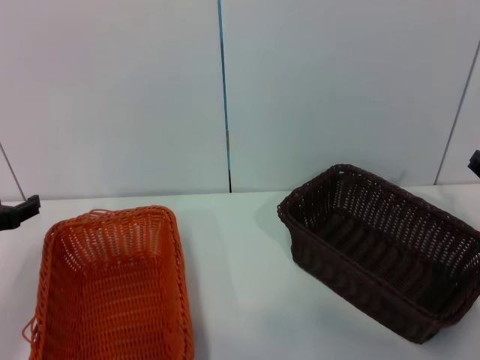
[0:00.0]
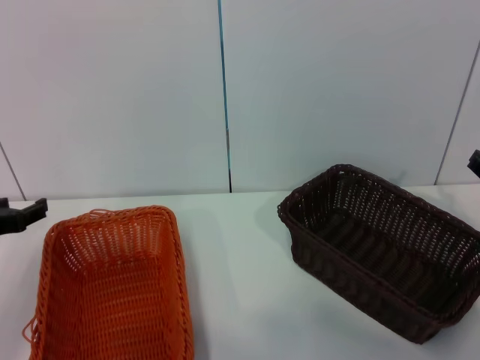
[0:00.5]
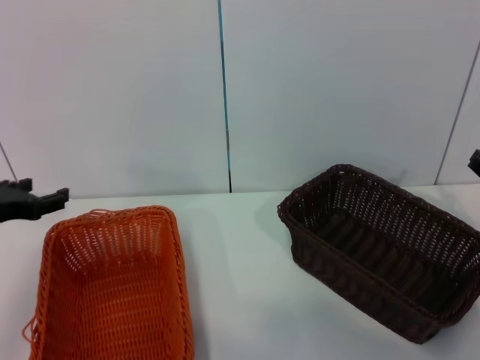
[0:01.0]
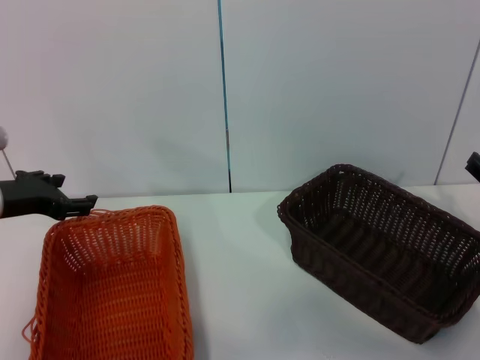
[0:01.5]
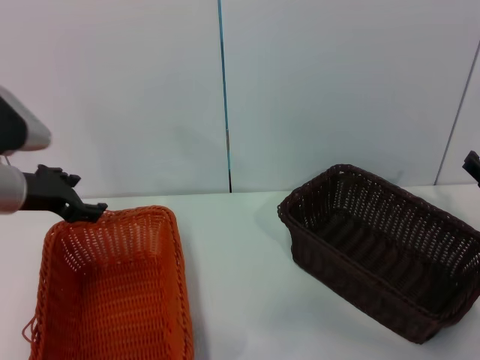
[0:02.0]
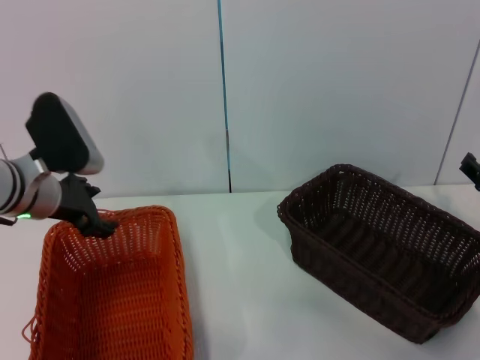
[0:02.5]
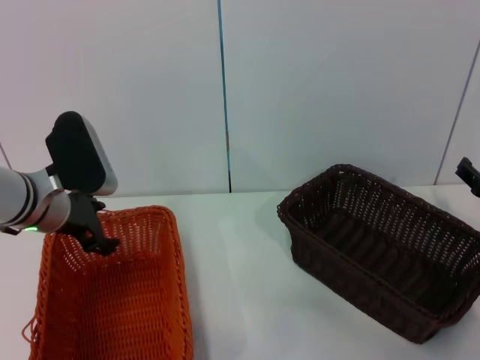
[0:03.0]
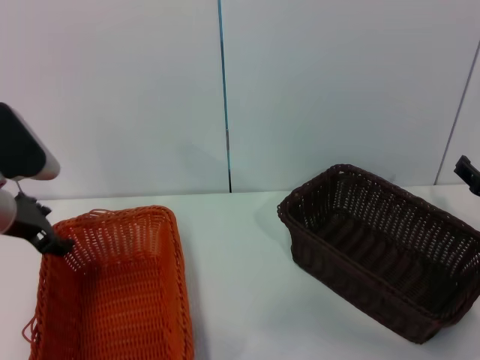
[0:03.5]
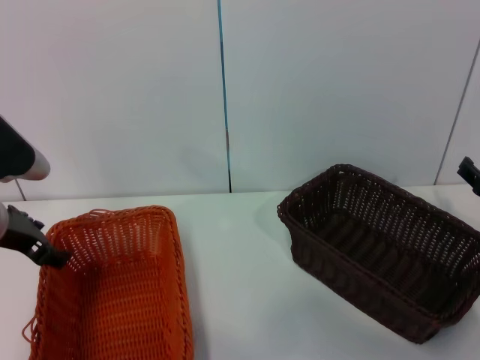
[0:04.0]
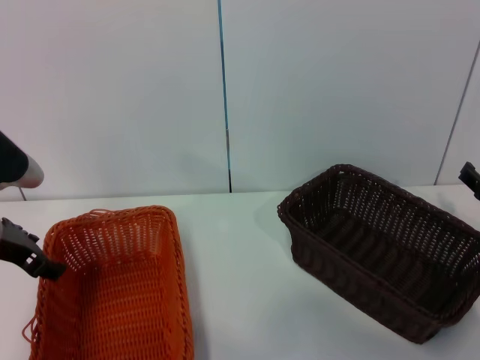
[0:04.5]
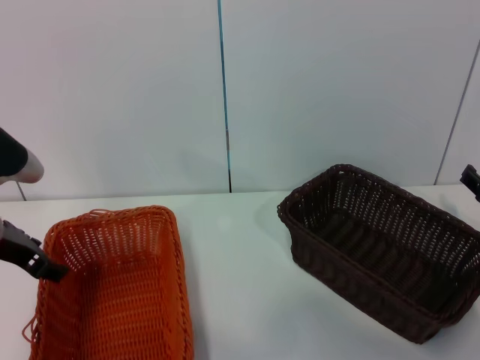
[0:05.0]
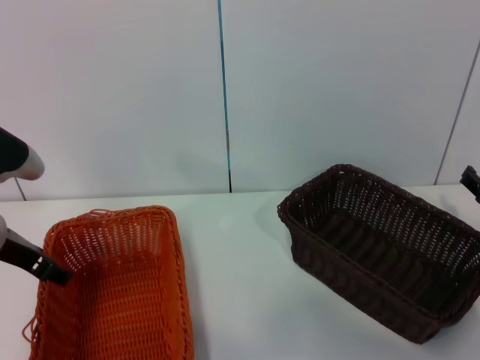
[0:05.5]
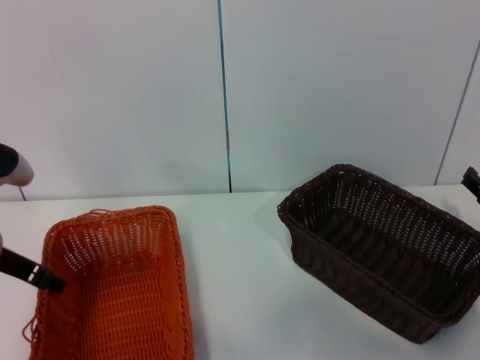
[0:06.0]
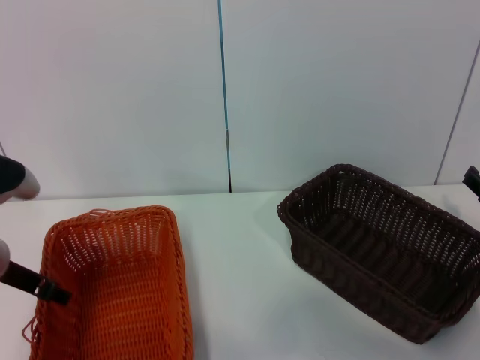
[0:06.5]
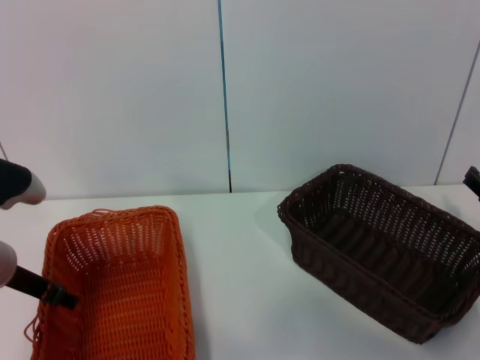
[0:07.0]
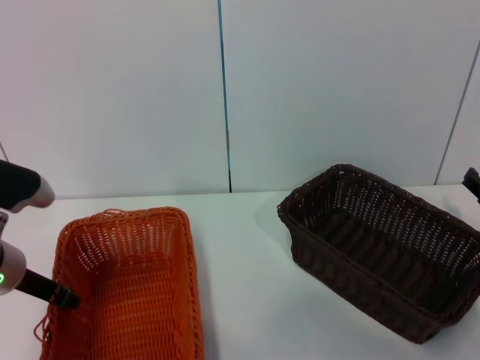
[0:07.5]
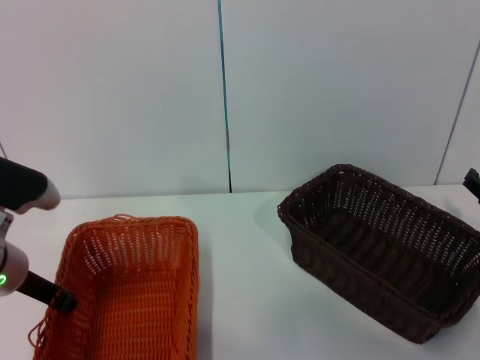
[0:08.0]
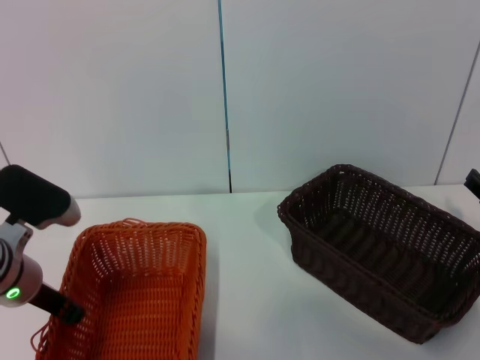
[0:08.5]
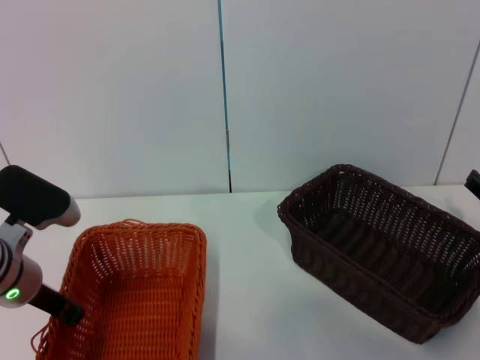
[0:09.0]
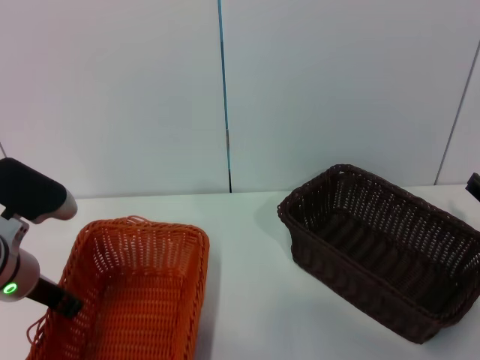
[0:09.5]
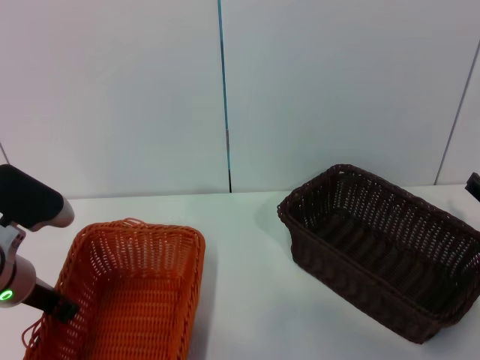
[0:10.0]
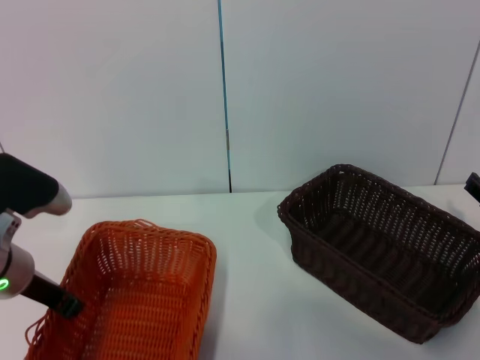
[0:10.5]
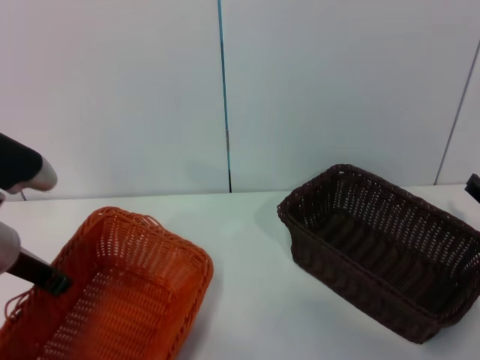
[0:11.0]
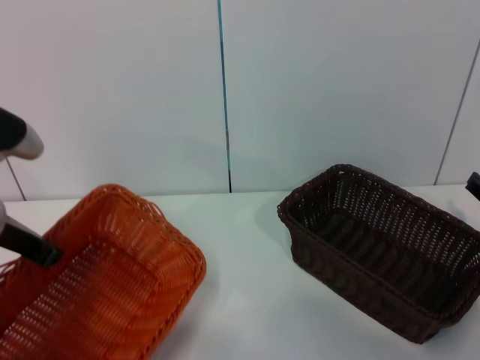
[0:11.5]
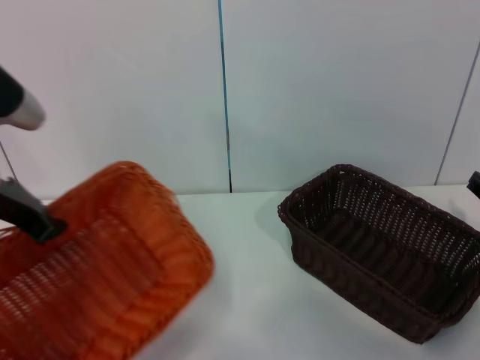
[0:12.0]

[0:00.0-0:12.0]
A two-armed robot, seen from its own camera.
Step, 0:00.0 to 0:11.5: Pick up the light basket with the left gripper.
0:00.0 to 0:02.0: The left gripper heads to the right, forward and upward, covering about 10 cm.
0:04.0 to 0:06.0: There are only small adjustments of the grippers.
0:06.0 to 0:08.0: The left gripper closes.
0:08.0 to 0:10.0: There are only small adjustments of the grippers.
0:10.0 to 0:12.0: The left gripper is displaced upward by approximately 15 cm.

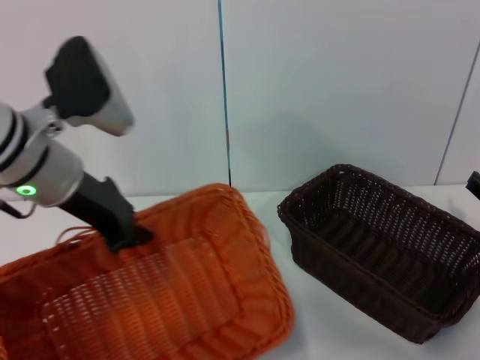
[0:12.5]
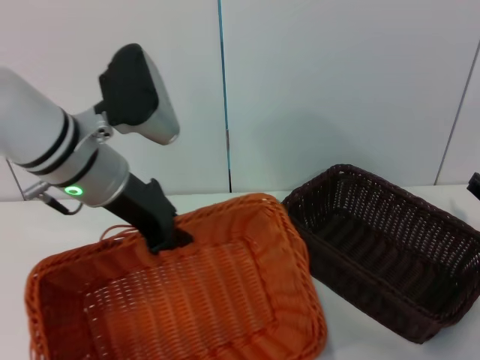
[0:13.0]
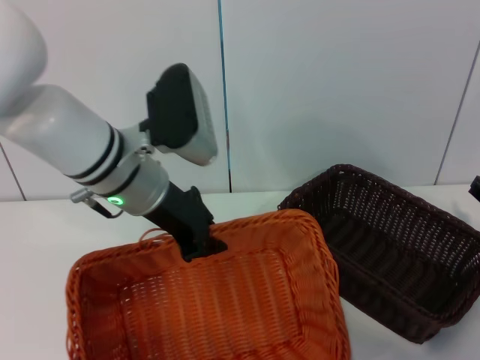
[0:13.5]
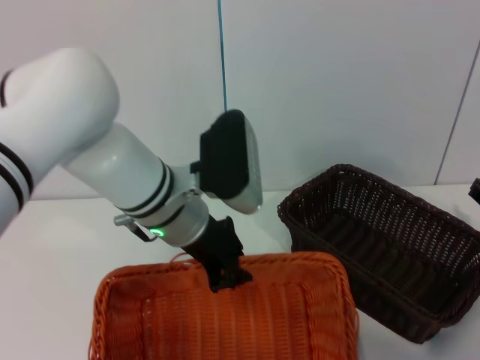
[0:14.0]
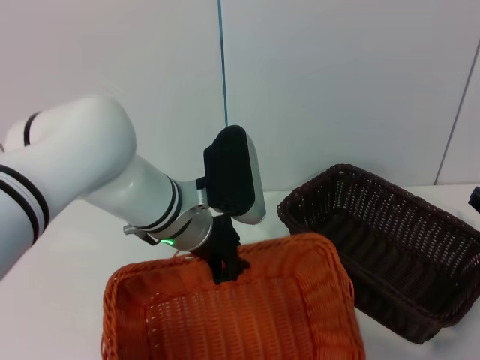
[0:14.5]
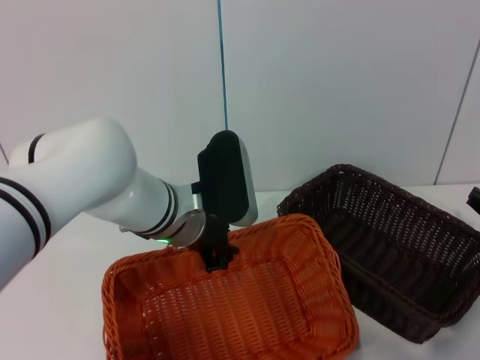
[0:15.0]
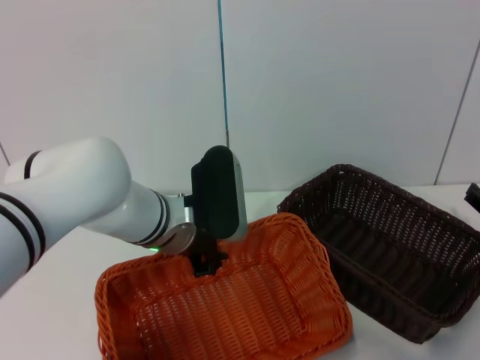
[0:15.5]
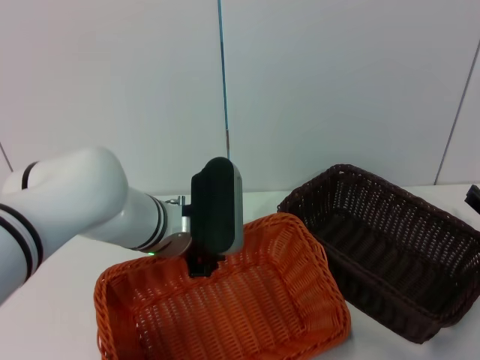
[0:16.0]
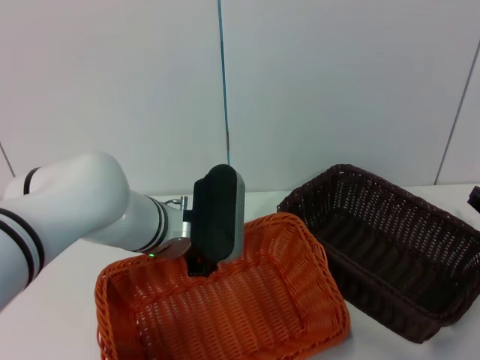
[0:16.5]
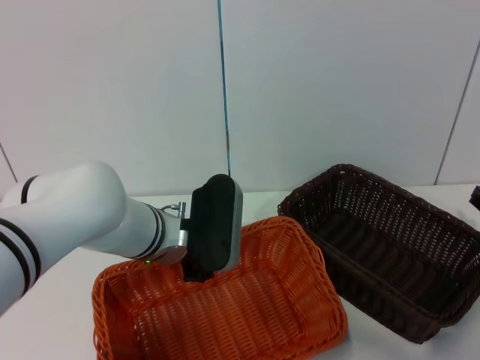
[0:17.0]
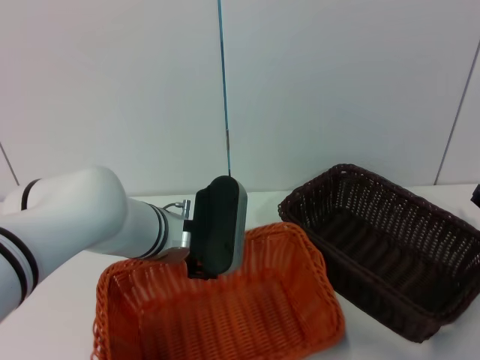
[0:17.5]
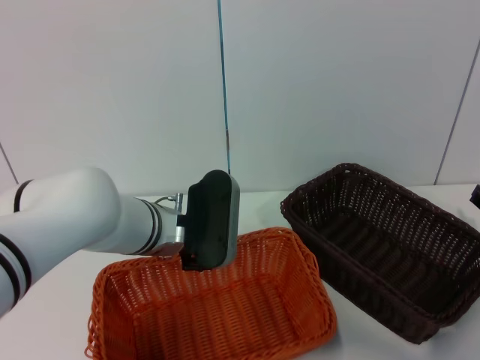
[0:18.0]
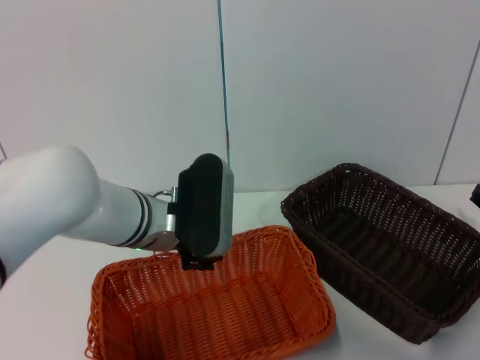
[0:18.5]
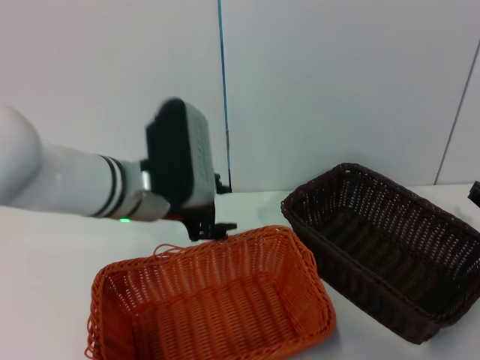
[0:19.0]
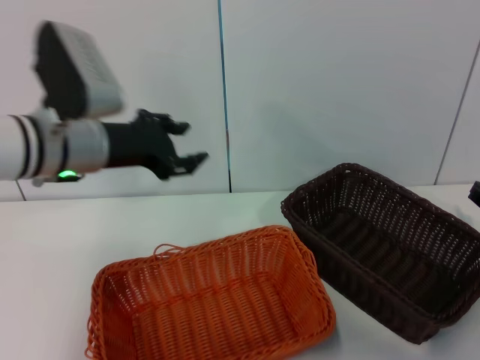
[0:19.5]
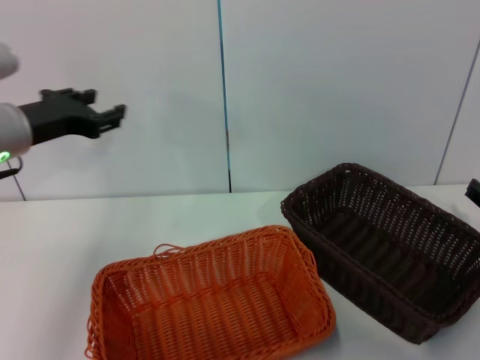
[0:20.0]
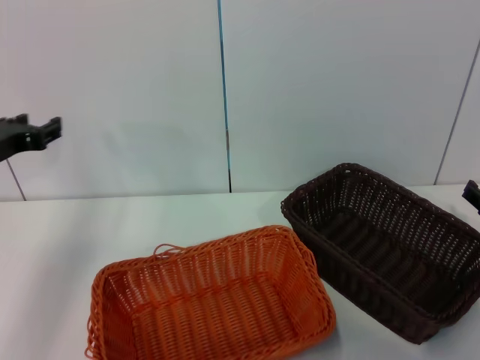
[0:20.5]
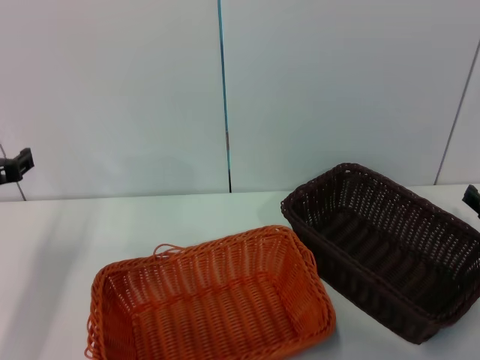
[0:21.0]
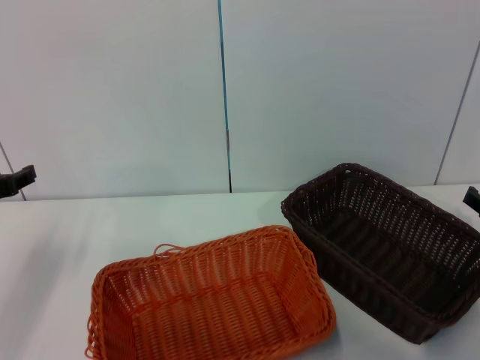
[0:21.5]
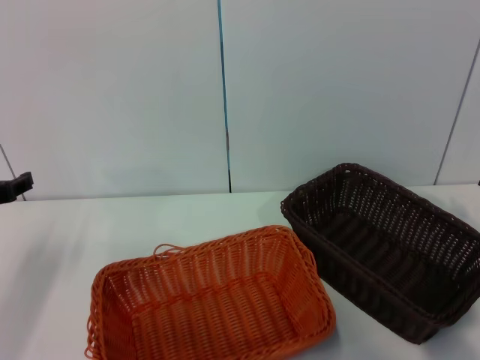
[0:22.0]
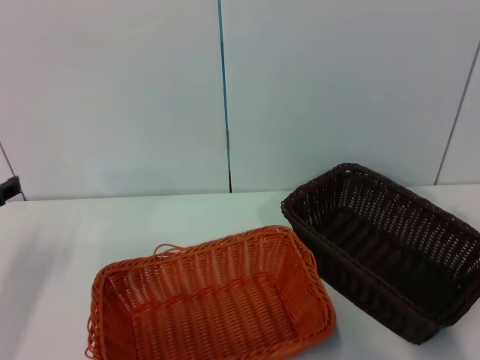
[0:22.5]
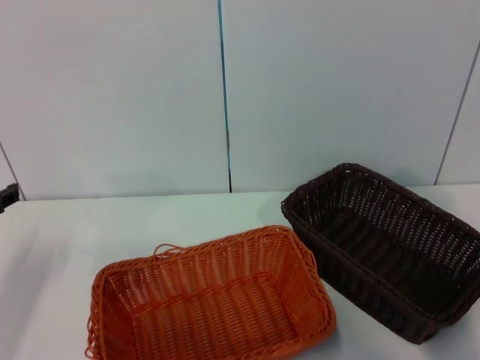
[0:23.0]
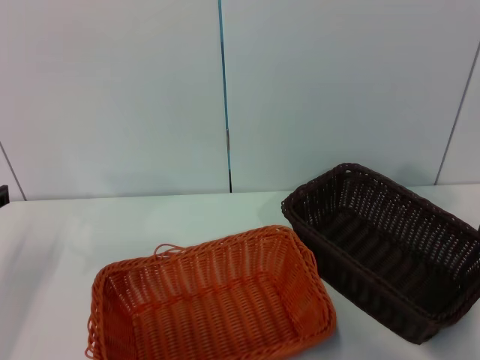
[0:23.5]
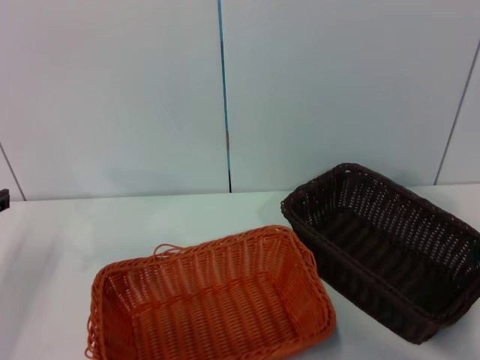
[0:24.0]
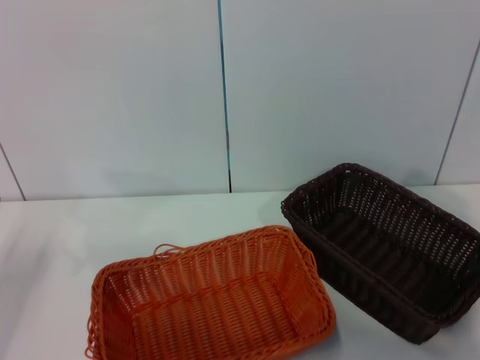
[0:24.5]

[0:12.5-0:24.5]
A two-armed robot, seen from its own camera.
Step, 0:12.5 to 0:17.5: Place the light basket in the center of view with the left gripper.
0:12.5 to 0:14.5: The left gripper moves to the right and downward, approximately 15 cm.
0:14.5 to 0:16.5: There are only small adjustments of the grippers.
0:16.5 to 0:18.5: The left gripper opens its fingers.
0:18.5 to 0:20.5: The left gripper moves to the left, some 20 cm.
0:20.5 to 0:22.5: The left gripper ends up roughly 10 cm from where it was.

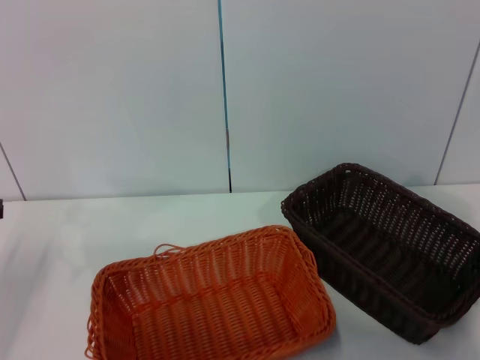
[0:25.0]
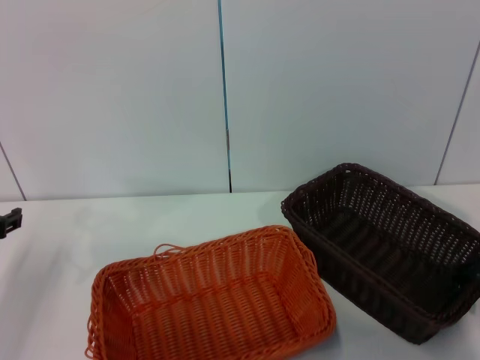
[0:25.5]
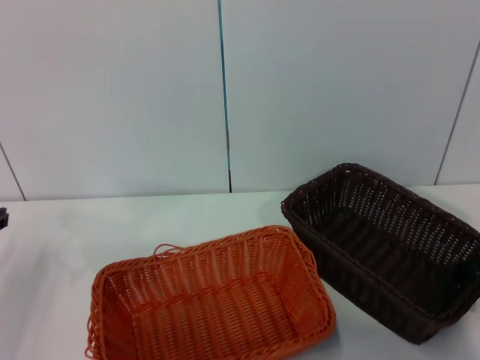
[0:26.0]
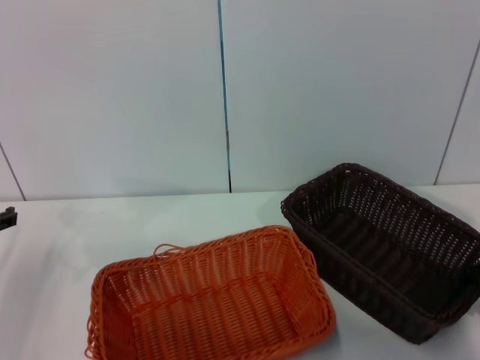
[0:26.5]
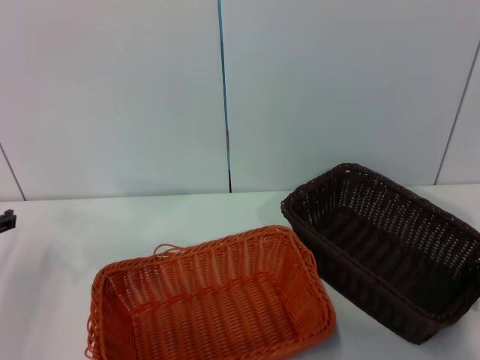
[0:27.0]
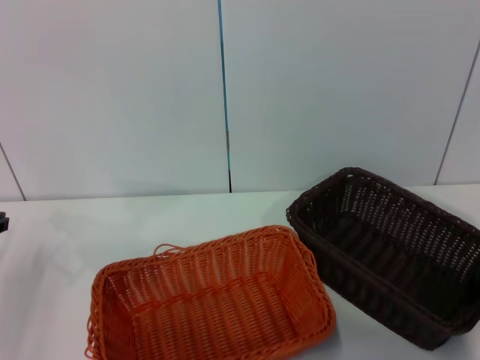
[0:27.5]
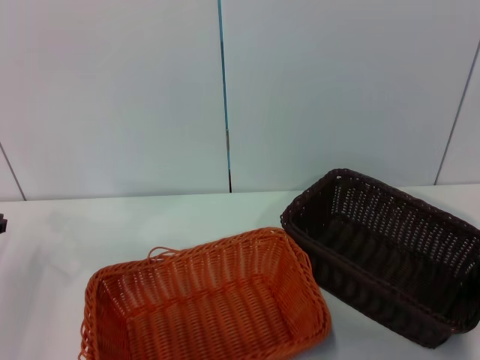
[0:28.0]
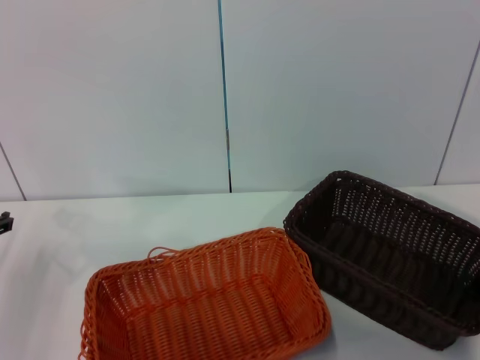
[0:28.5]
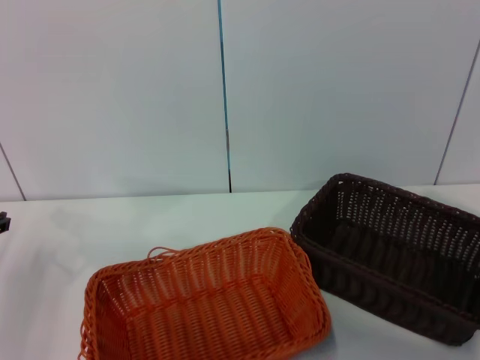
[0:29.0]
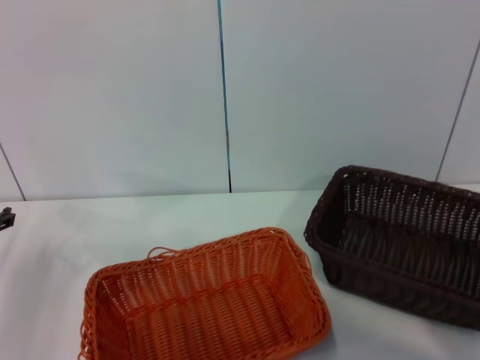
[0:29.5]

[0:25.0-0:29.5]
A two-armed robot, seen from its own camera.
0:27.0 to 0:29.5: The right gripper closes up.
